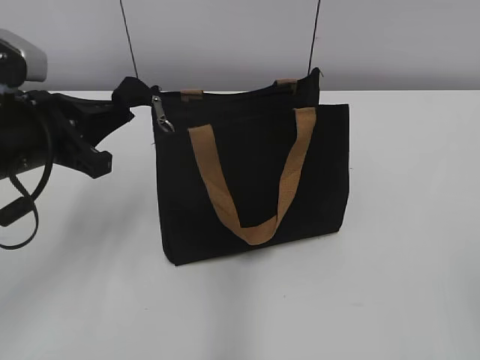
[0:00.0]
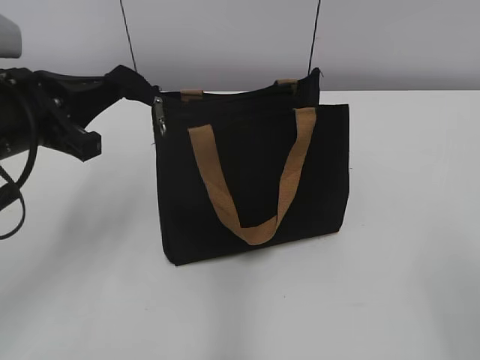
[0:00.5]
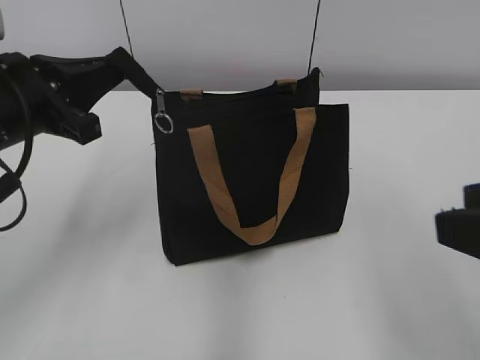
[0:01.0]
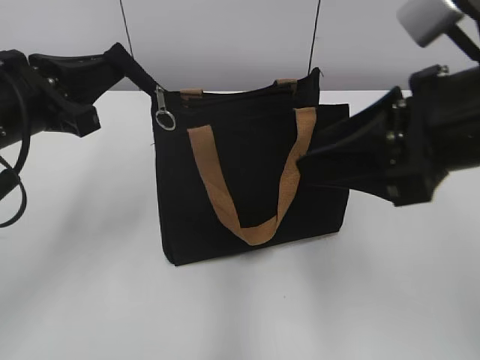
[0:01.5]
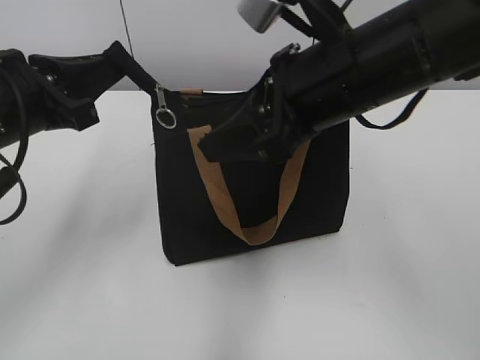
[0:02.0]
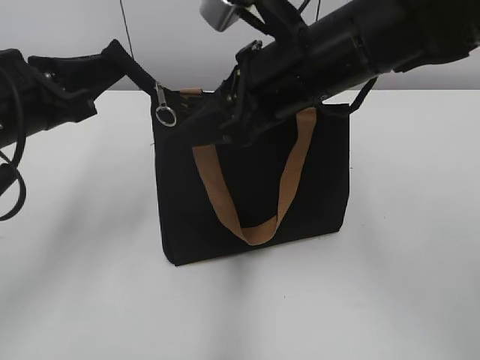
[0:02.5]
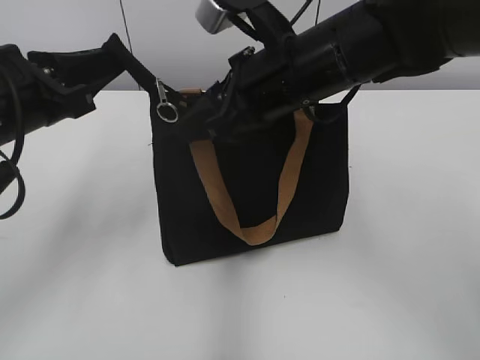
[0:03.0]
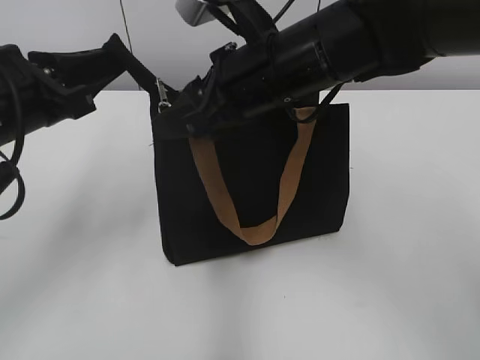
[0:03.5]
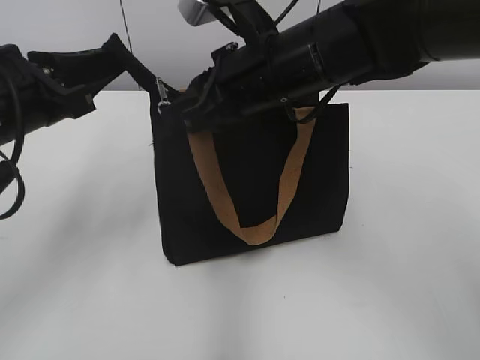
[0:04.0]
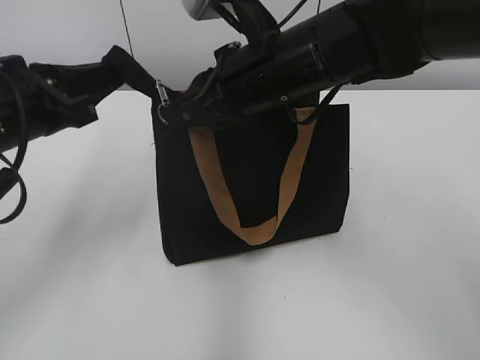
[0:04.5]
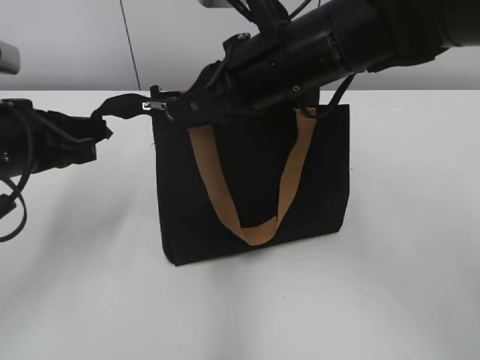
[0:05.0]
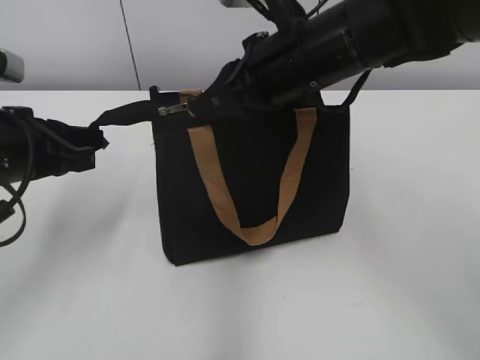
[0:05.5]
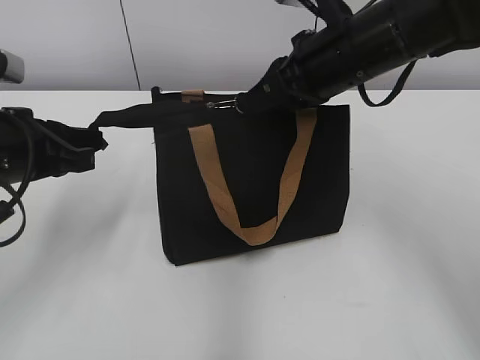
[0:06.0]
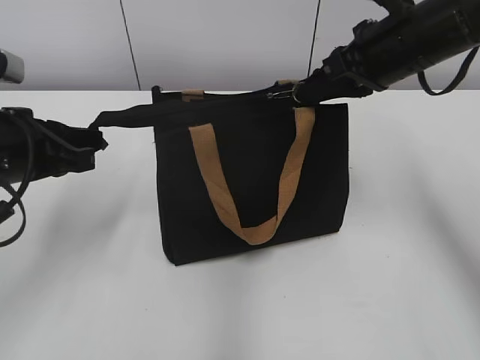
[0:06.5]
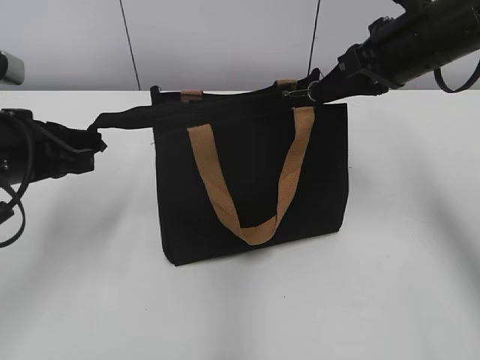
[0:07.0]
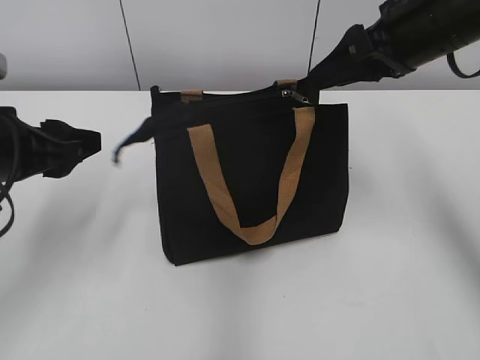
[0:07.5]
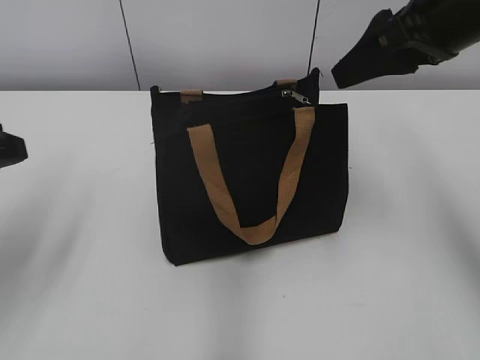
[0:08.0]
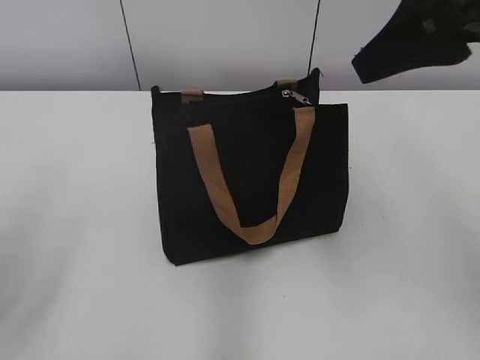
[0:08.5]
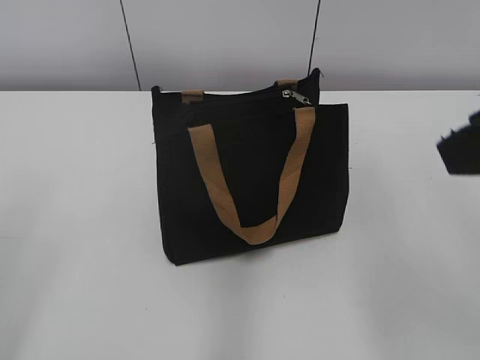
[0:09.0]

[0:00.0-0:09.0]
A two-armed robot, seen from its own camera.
Step, 0:00.0 to 0:07.0: Zip up the bag with your right hand.
0:00.0 to 0:02.0: The right gripper is displaced forward and to the left by roughly 30 cm.
0:02.0 to 0:04.5: The right gripper heads forward and to the left, covering approximately 10 cm, and closes up.
0:04.5 to 0:07.0: The right gripper travels to the right by about 15 cm.
0:07.0 to 0:09.0: Both grippers travel together backward and upward, roughly 20 cm. The right gripper opens up; the left gripper opens up.
